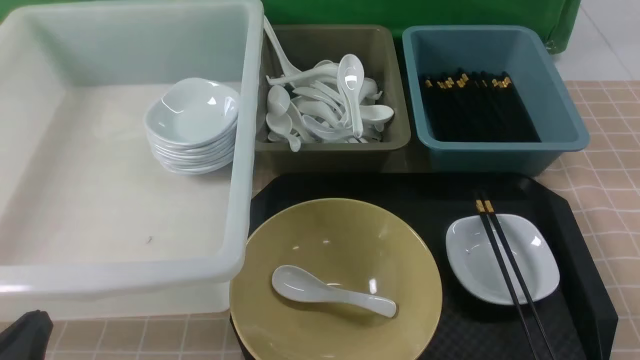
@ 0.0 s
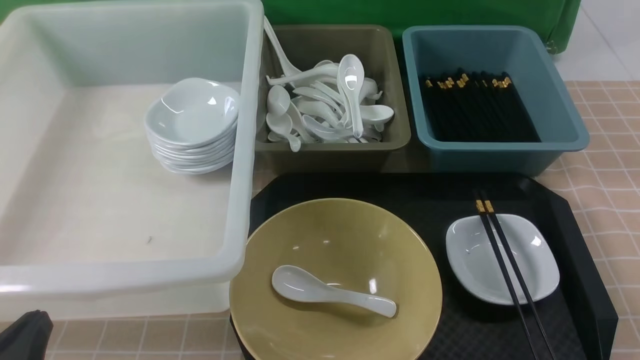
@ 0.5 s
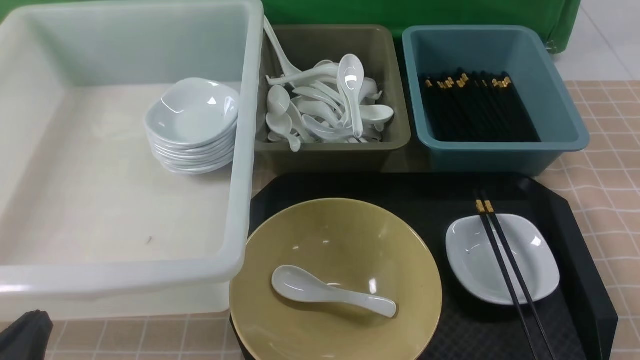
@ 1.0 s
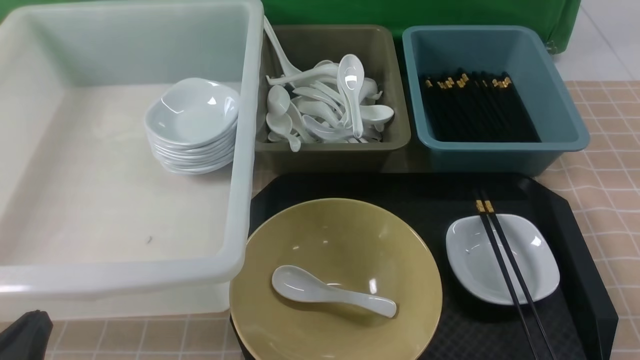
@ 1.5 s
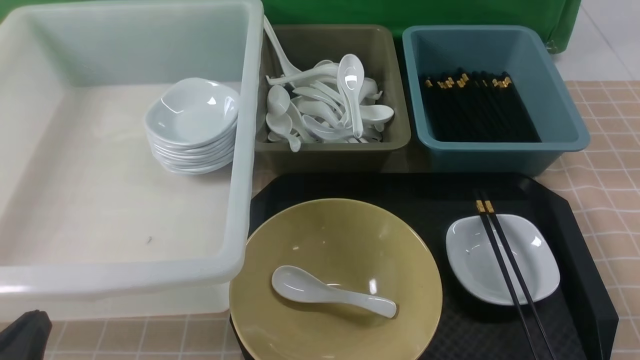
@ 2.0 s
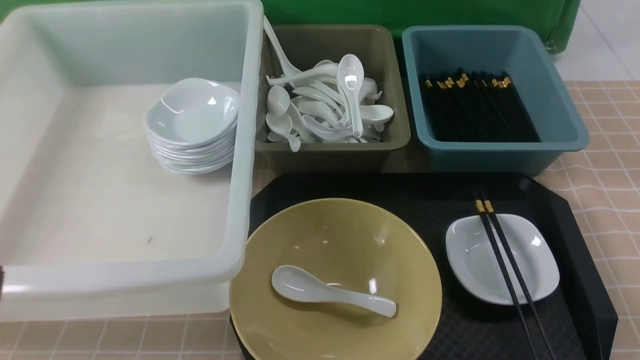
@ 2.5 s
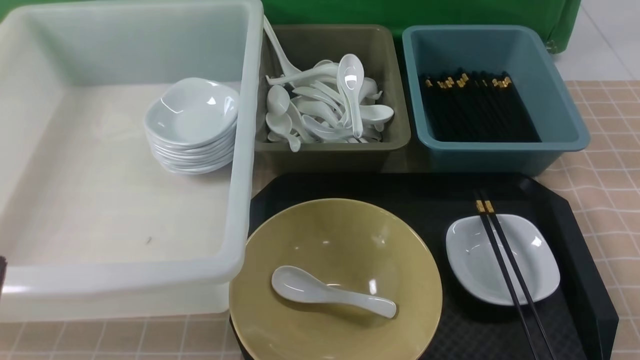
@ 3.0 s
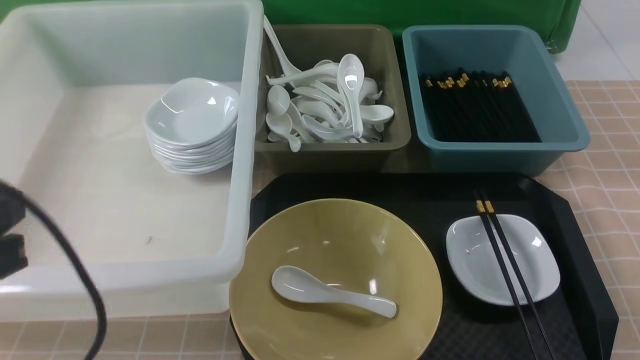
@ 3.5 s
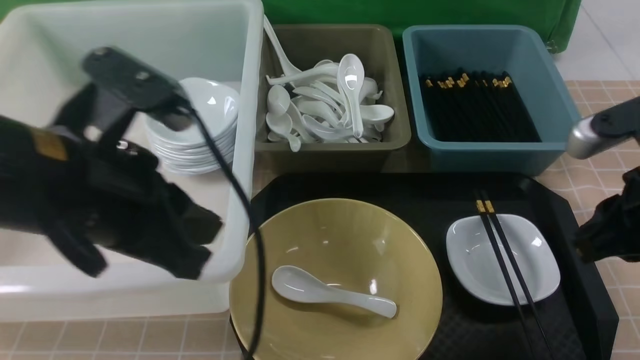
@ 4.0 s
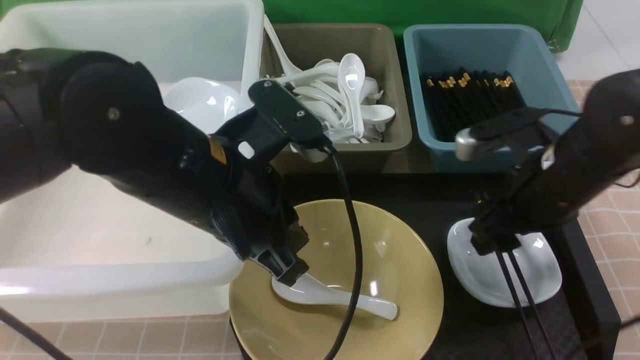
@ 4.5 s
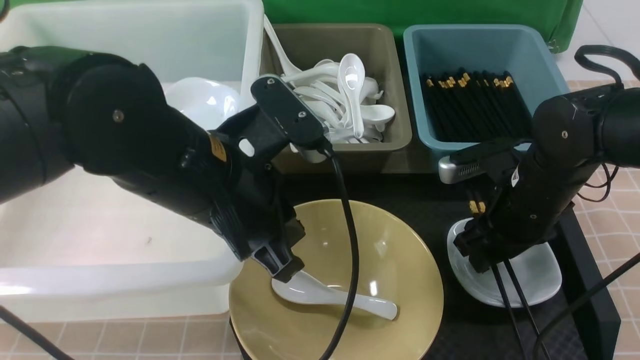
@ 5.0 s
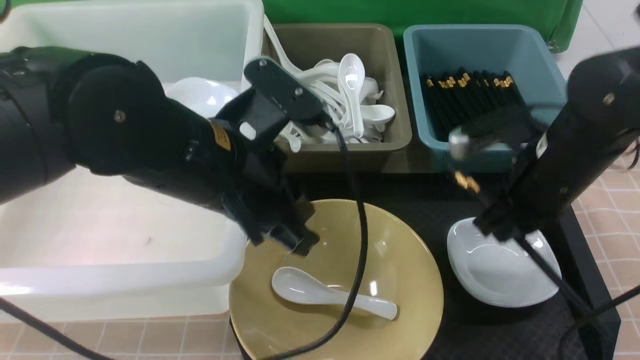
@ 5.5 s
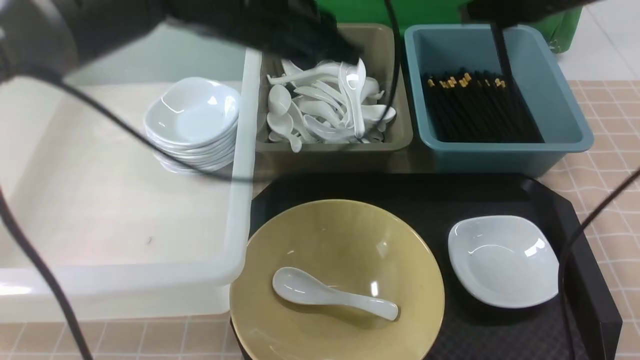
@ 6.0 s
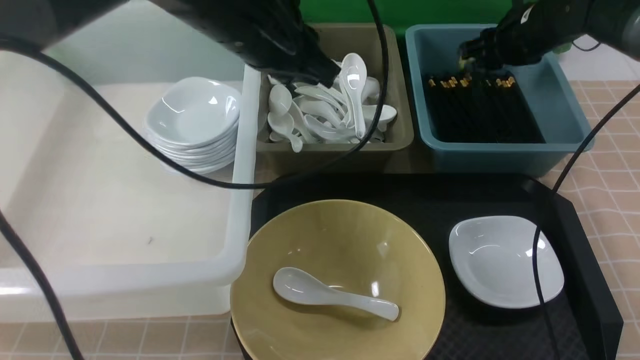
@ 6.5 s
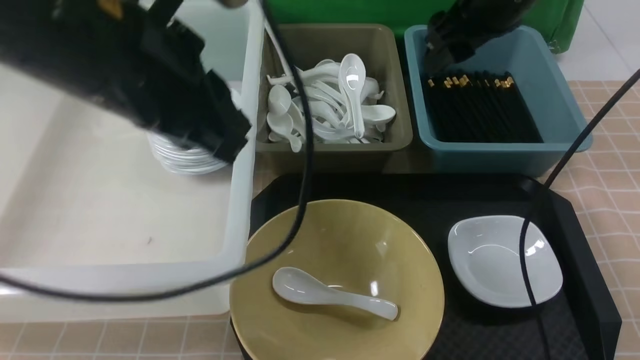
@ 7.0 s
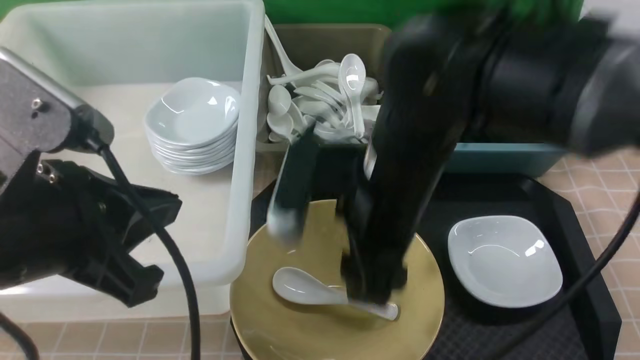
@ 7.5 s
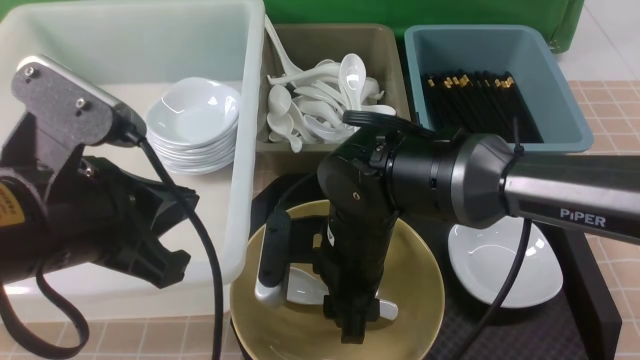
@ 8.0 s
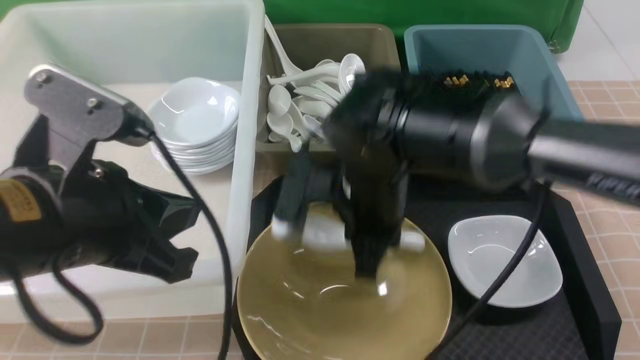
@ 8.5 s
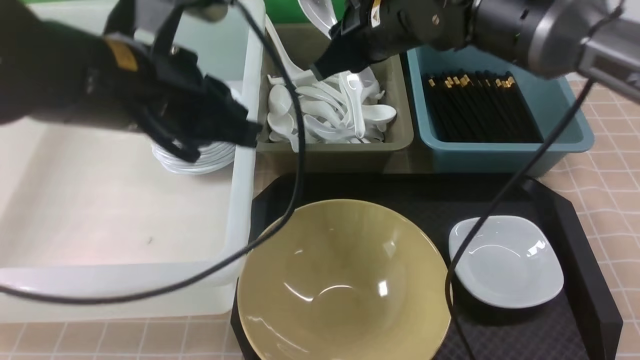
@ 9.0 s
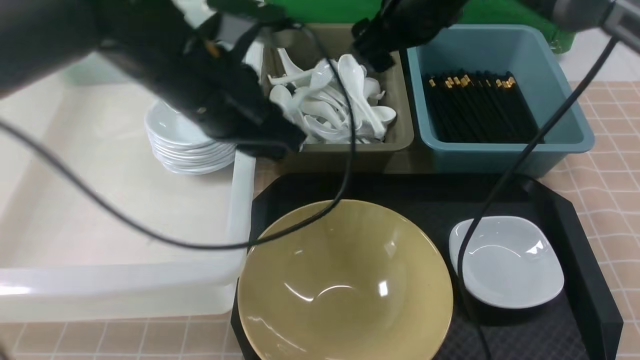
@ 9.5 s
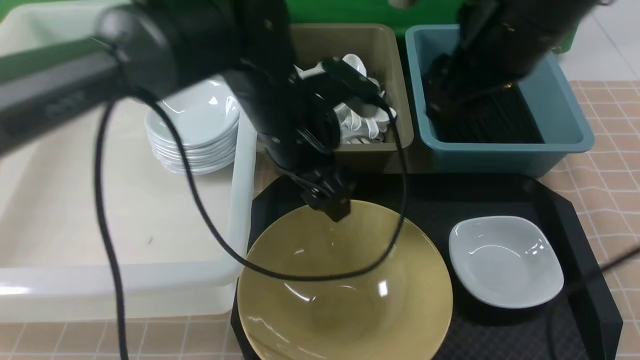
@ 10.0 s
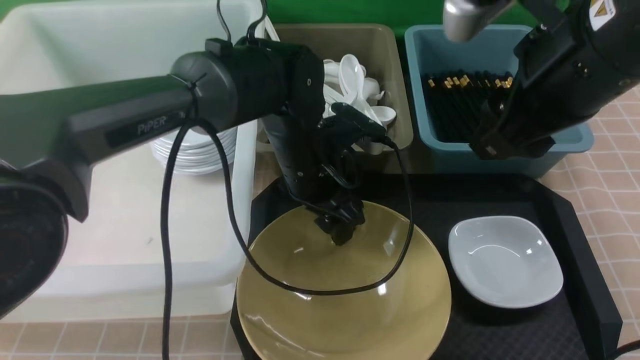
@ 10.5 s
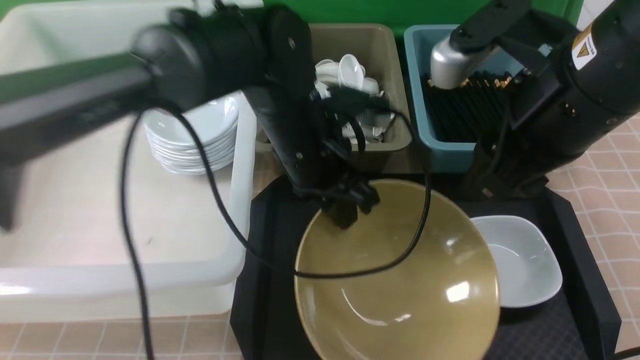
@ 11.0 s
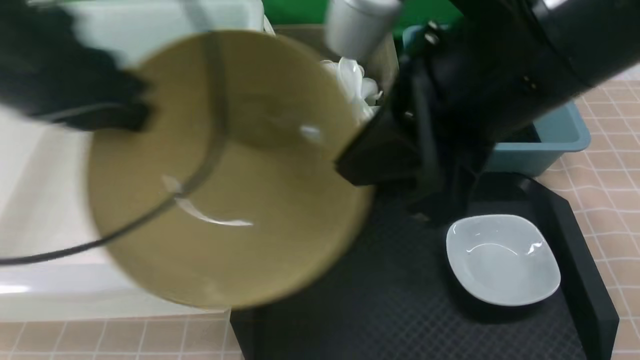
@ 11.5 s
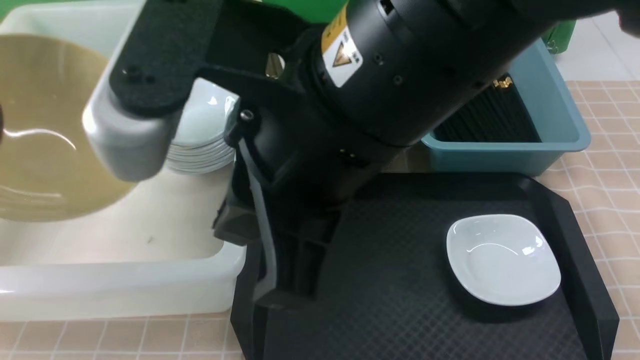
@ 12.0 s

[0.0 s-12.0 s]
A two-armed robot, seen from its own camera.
Task of the whole recording: on brown table put chopsticks spoon bowls plates into blue grey white boxes.
Step, 0.0 to 5.5 s: use the right arm to grab the chopsticks.
Step, 6.0 to 7.0 s: use the right arm to put the chopsticks into the small storage box on the right.
Step, 7.5 to 8.0 s: use the right arm to grab the soup spoon in the middle.
Step, 8.5 to 9.5 s: use the right arm to put the soup spoon into the small storage box in the middle.
Step, 10.0 to 11.0 s: use the left arm to grab the yellow noodle bowl on the left.
0.0 to 2.0 s: The two grippers keep their place.
2.0 to 4.0 s: The right gripper heads forward and upward, covering some 20 cm; the left gripper goes about 25 cm upward, forward and to the right.
4.0 to 6.0 s: The left gripper shifts some 20 cm forward and to the right. The right gripper heads forward, covering approximately 20 cm, and opens, then closes once more.
6.0 to 8.0 s: The right gripper shifts some 30 cm to the left, backward and downward, and opens up; the left gripper travels backward and to the left by some 20 cm.
8.0 to 10.0 s: The right gripper shifts roughly 25 cm upward and to the right, and closes, then reopens. The left gripper heads forward and to the right, covering about 20 cm, and opens its fingers.
10.0 to 12.0 s: The right gripper goes some 20 cm to the left and backward, and closes. The left gripper shifts roughly 35 cm to the left, and closes its fingers.

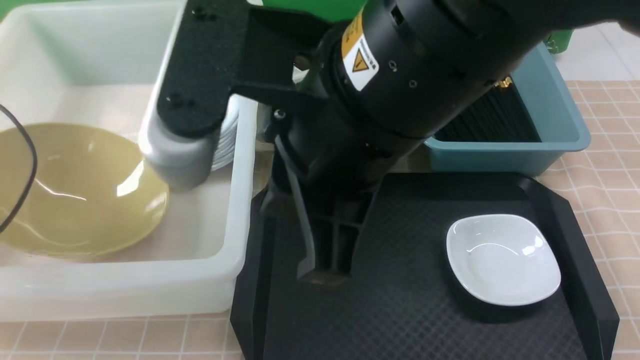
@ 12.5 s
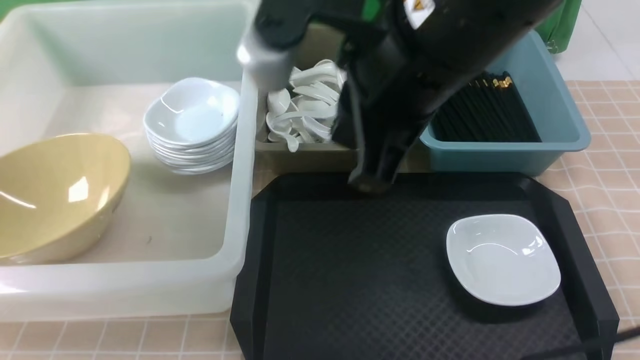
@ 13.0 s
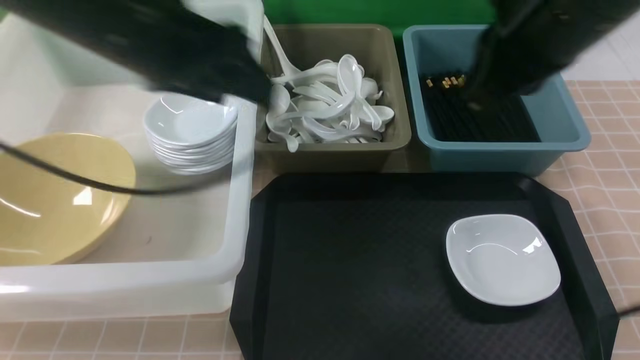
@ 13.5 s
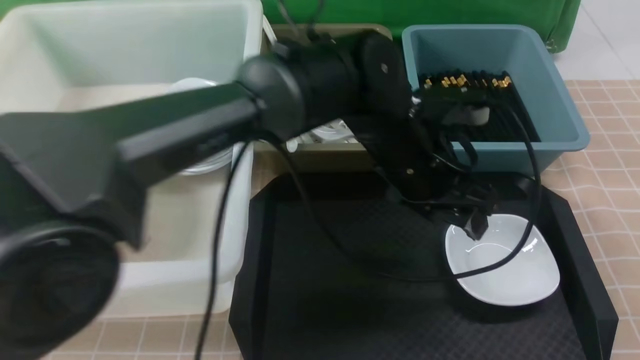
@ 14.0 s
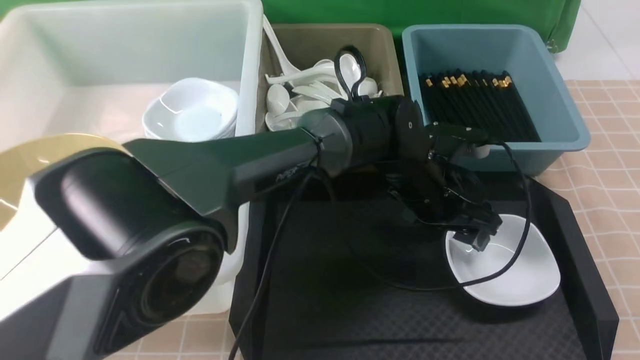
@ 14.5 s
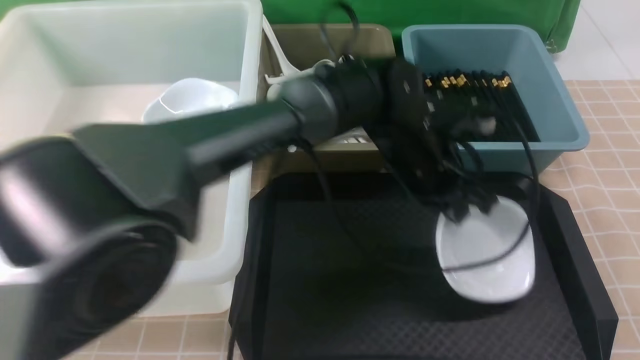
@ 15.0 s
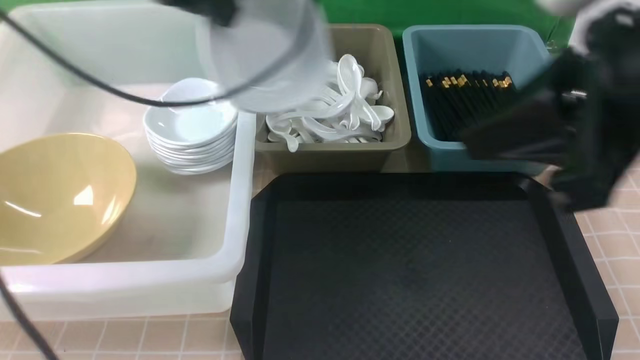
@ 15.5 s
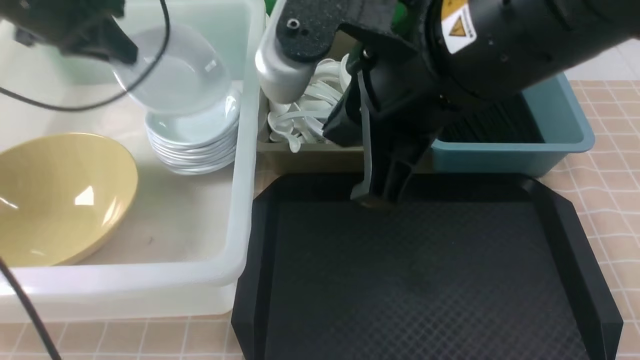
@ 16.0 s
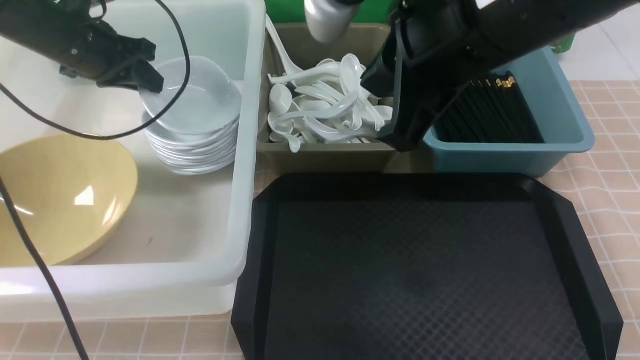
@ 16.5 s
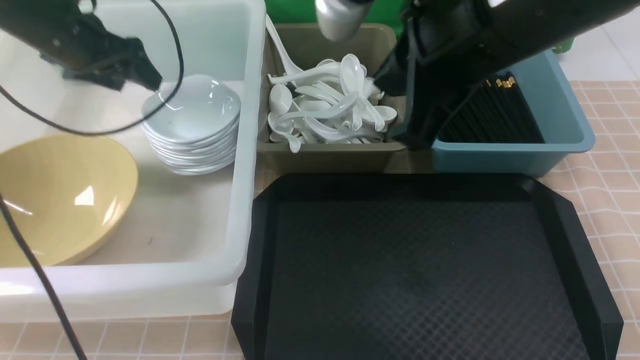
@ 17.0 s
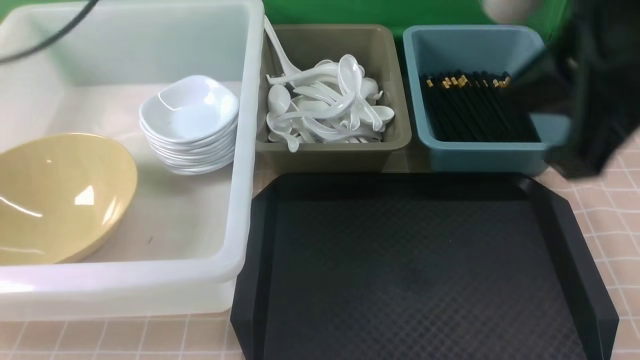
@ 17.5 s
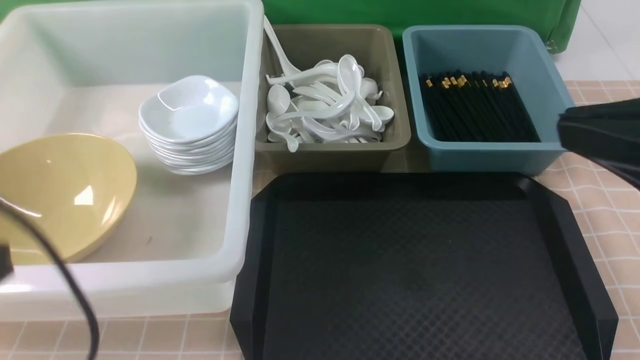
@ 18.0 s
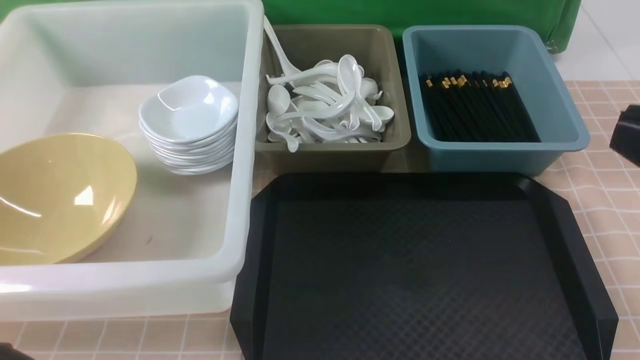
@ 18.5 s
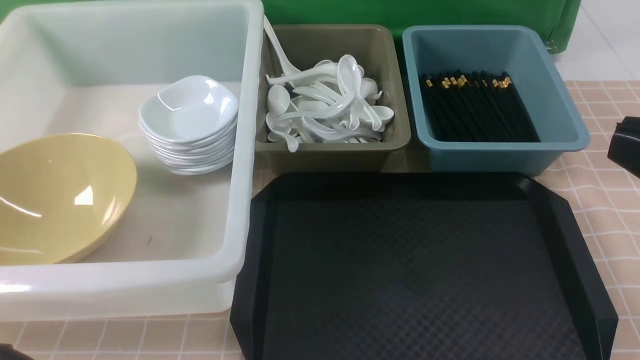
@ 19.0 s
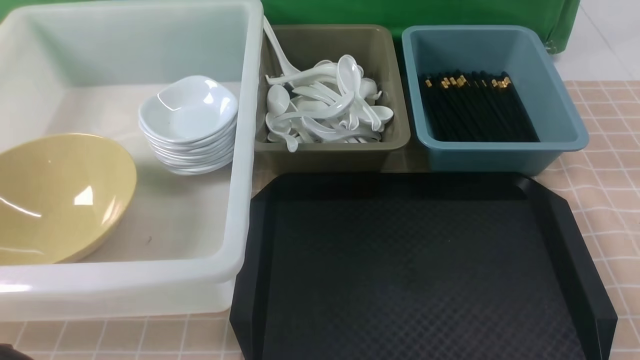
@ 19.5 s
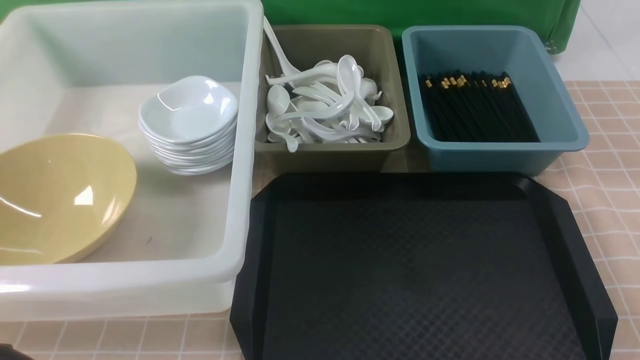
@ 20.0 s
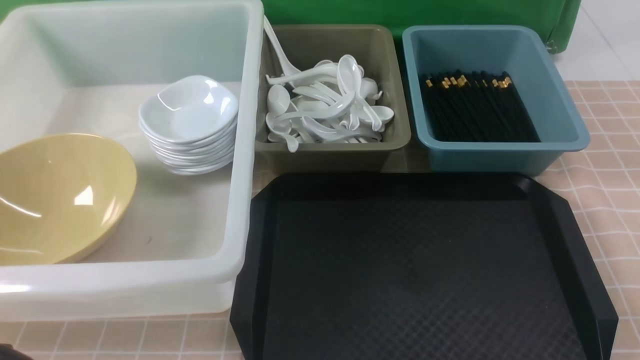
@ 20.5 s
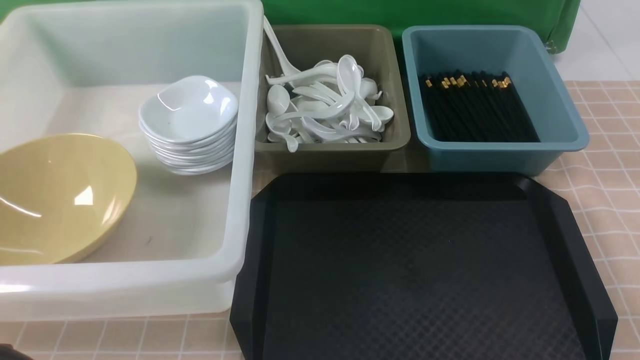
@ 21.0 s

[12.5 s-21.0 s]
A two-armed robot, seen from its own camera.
Task of the whole recording: on brown table put chopsticks spoon bowls plates into blue grey white boxes.
Step, 13.0 to 15.0 s: use the left arm to grab the plate.
Step, 15.5 to 17.0 s: use the left arm to put the plate into the large storage box on the left.
12.5 to 14.5 s: The right gripper is displaced to the right by about 25 cm. The left gripper moves to the right, about 50 cm, and opens its fingers.
14.5 to 16.5 s: The left gripper moves to the left, roughly 40 cm, and closes. Meanwhile the right gripper goes roughly 25 cm to the left and forward.
16.5 to 19.0 s: The left gripper travels backward by some 40 cm, and opens, then closes again. The right gripper shifts some 20 cm backward and to the right.
19.0 to 21.0 s: The right gripper moves downward and to the right, some 20 cm.
